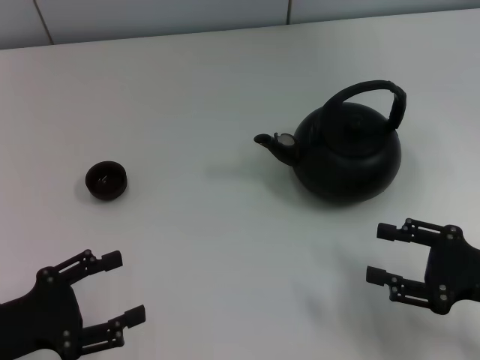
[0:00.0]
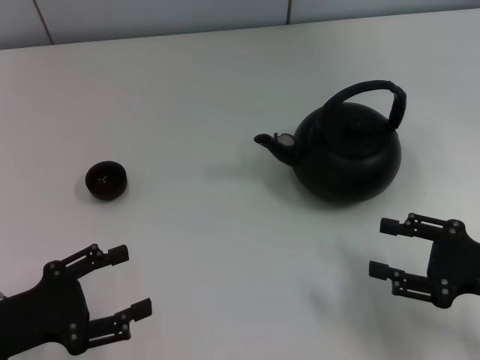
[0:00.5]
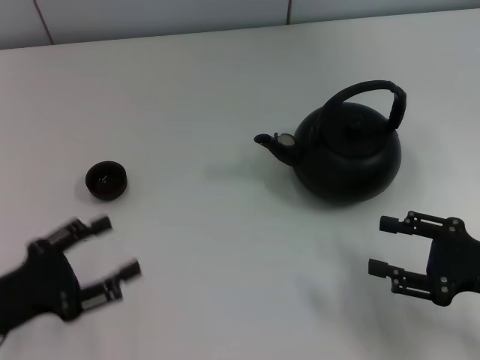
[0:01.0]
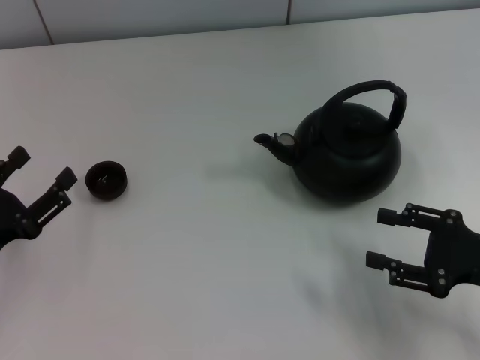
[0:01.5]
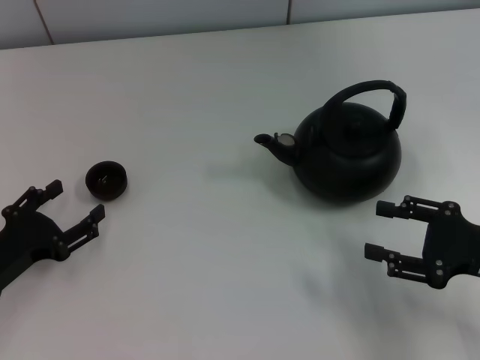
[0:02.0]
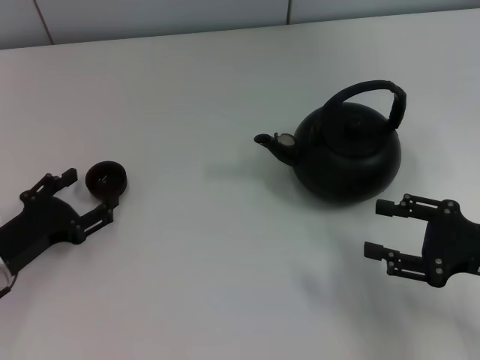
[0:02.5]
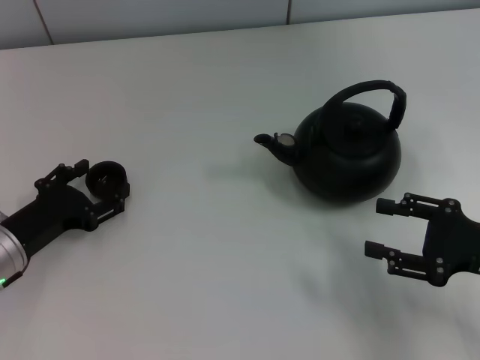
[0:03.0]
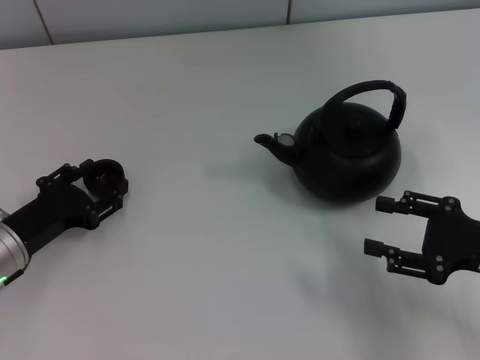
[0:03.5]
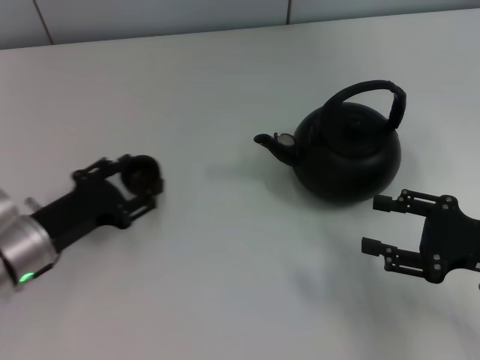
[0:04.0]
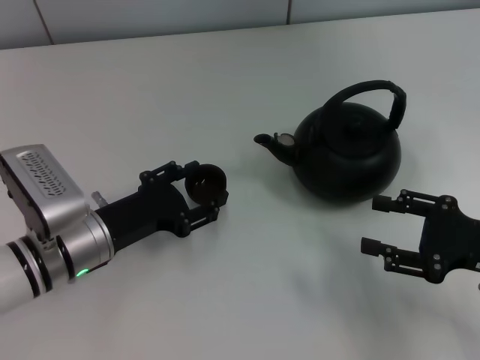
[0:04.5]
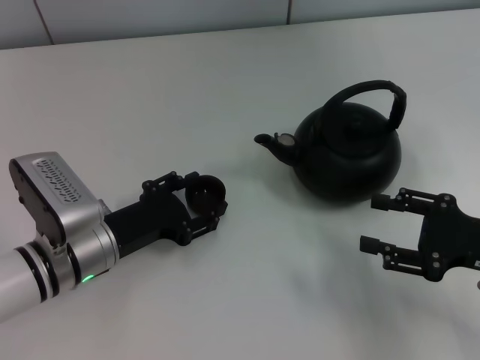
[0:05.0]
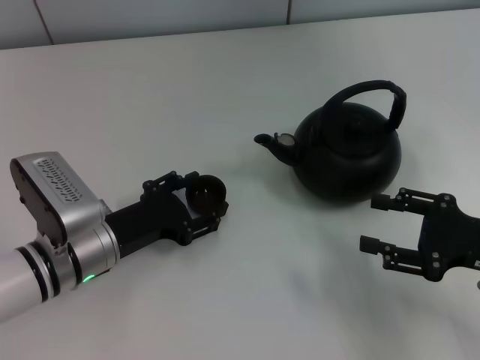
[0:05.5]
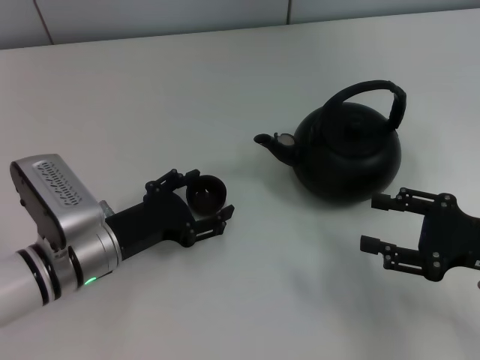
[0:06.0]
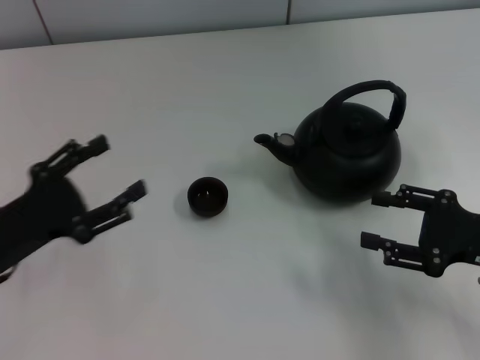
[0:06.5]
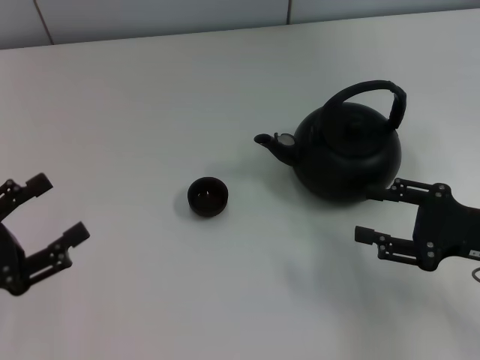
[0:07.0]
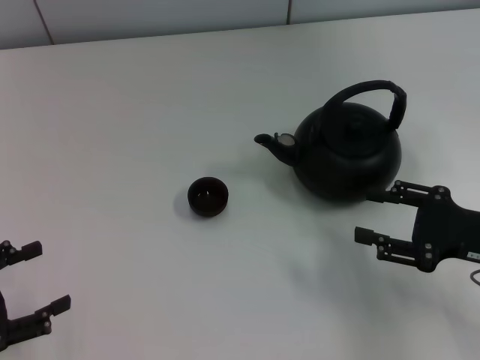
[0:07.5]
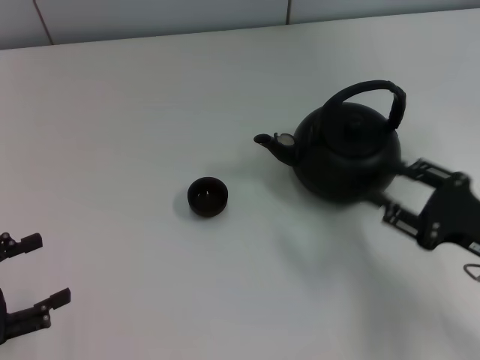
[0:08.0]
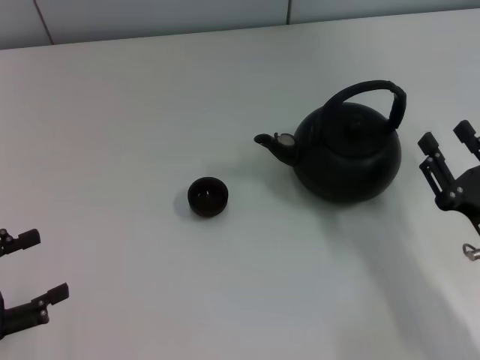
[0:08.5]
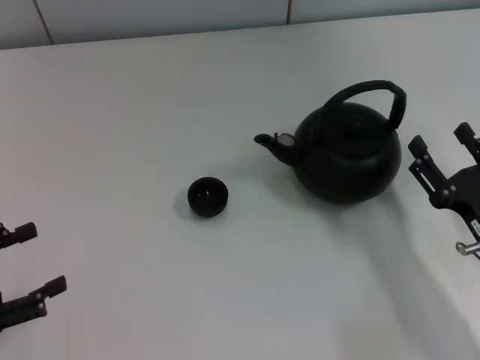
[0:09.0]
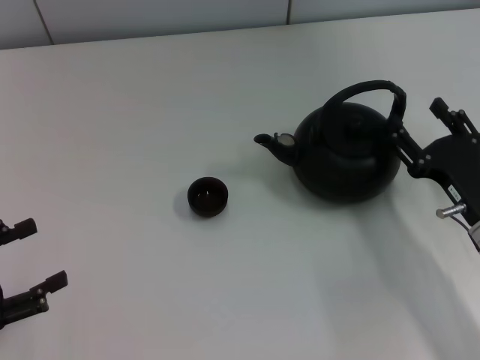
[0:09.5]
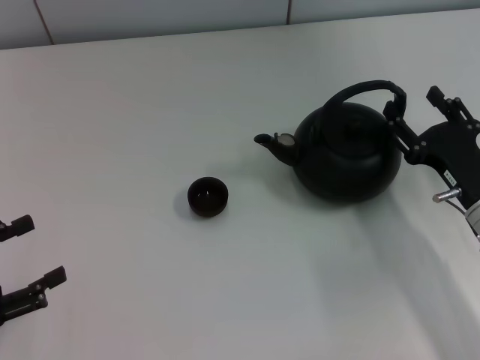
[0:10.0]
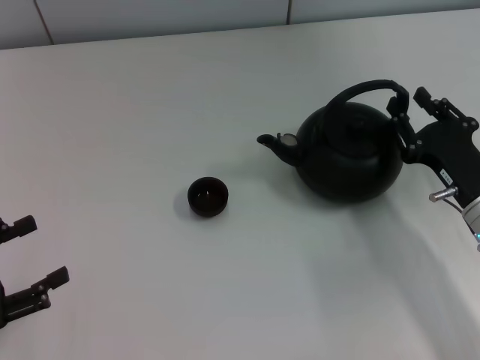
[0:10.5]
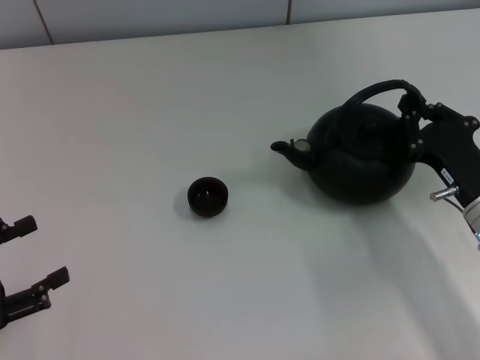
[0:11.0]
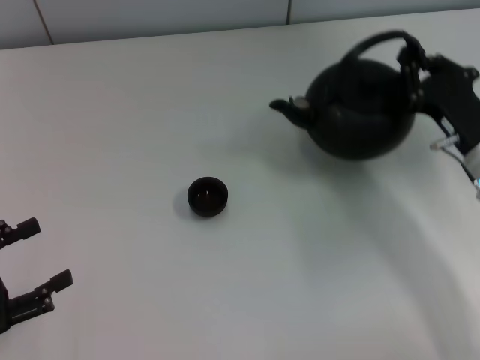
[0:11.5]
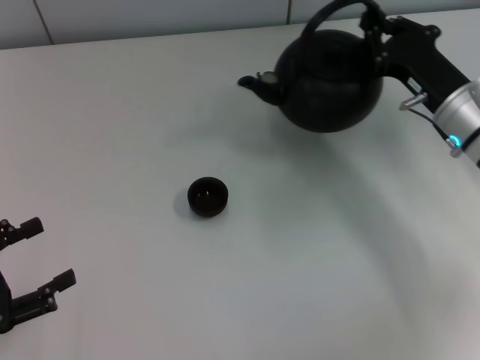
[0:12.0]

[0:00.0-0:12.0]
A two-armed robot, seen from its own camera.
Task of the whole recording: Grasp the handle of the teapot with one hand and pour tea into the teacup.
Step, 0:00.0 to 0:04.0: Pick up the teacup with the left gripper.
Step, 0:04.5 to 0:06.5: Place the teacup in the center of view with the left gripper.
Step, 0:07.0 to 0:11.5: Pick up the teapot with the right gripper.
0:00.0 to 0:02.0: The left gripper moves approximately 5 cm.
0:02.0 to 0:04.0: The left gripper moves about 5 cm, and closes up.
0:04.0 to 0:06.0: The left gripper heads to the right, covering approximately 5 cm, and opens.
0:06.0 to 0:08.0: The left gripper goes approximately 20 cm to the left and backward.
0:08.0 to 0:10.0: The right gripper travels forward by about 5 cm.
0:10.0 to 0:12.0: The right gripper goes approximately 10 cm forward and upward, and closes its fingers.

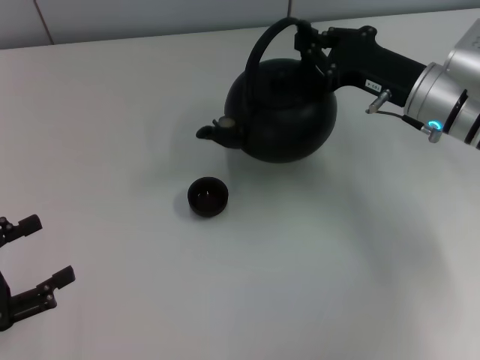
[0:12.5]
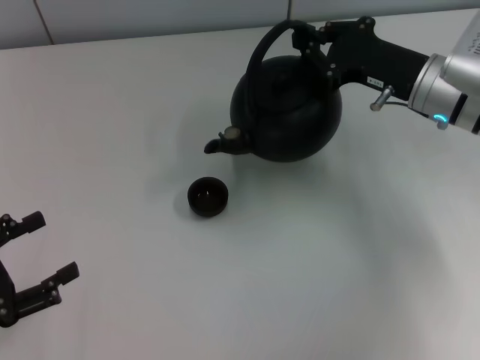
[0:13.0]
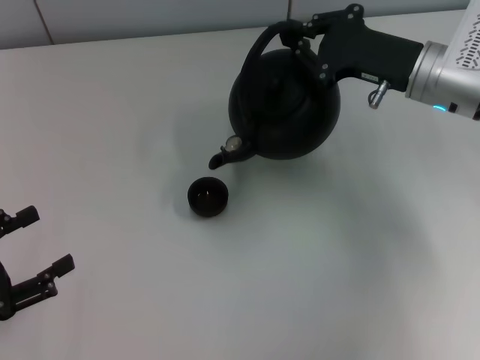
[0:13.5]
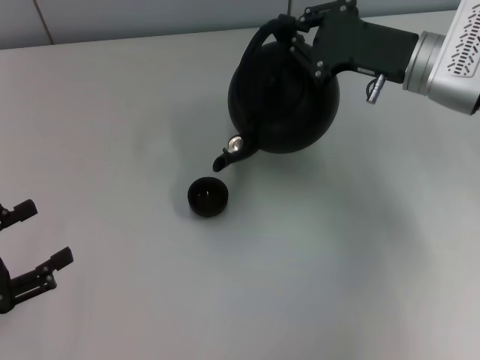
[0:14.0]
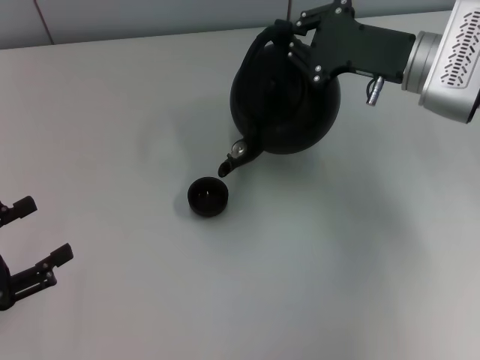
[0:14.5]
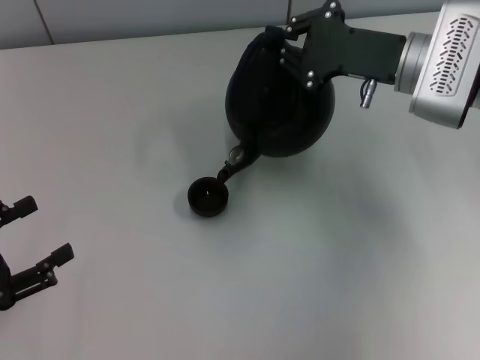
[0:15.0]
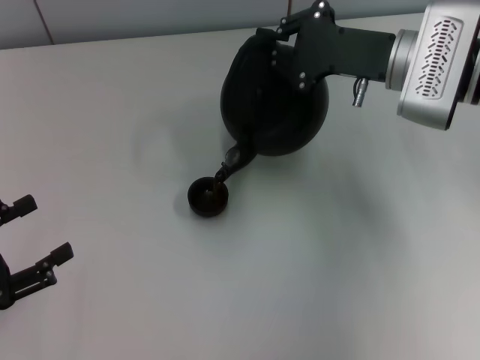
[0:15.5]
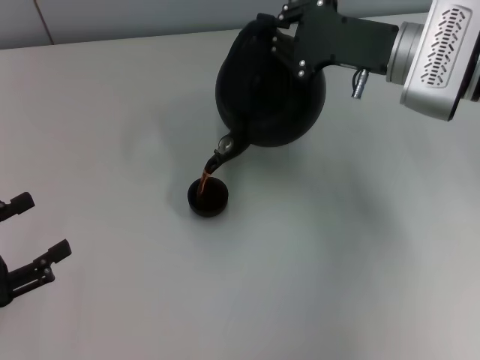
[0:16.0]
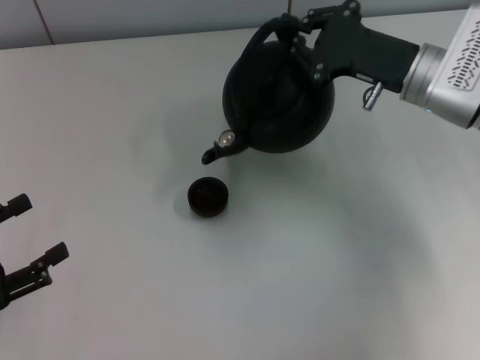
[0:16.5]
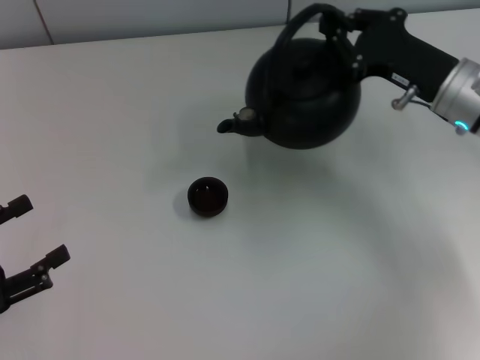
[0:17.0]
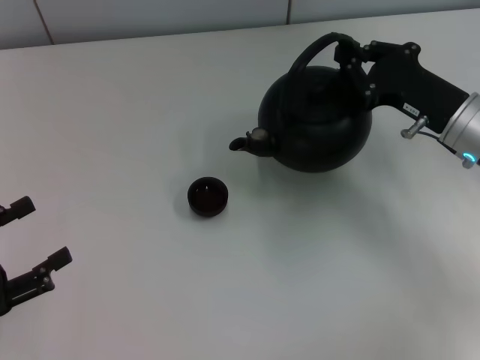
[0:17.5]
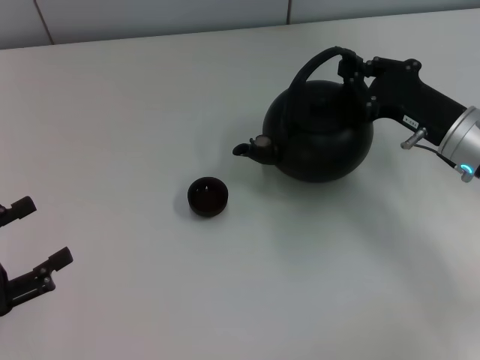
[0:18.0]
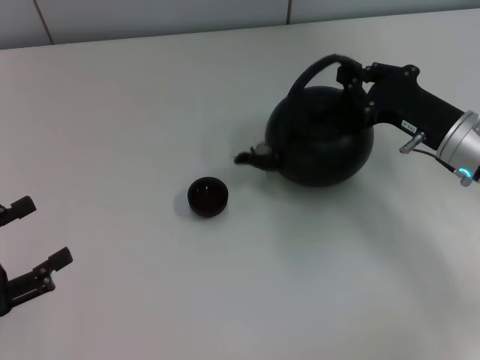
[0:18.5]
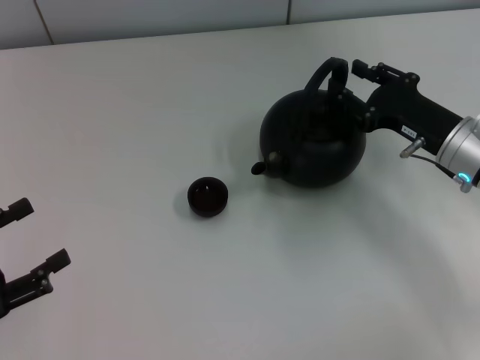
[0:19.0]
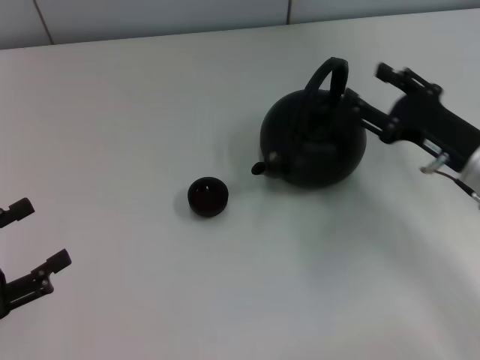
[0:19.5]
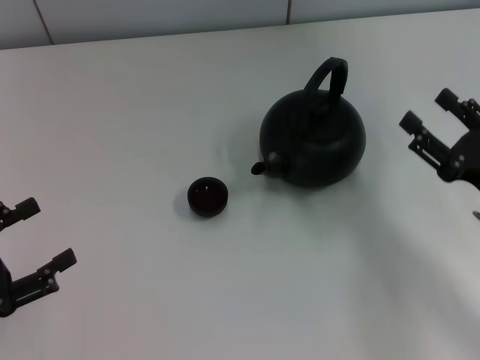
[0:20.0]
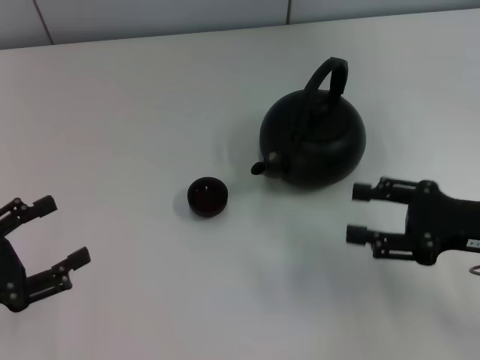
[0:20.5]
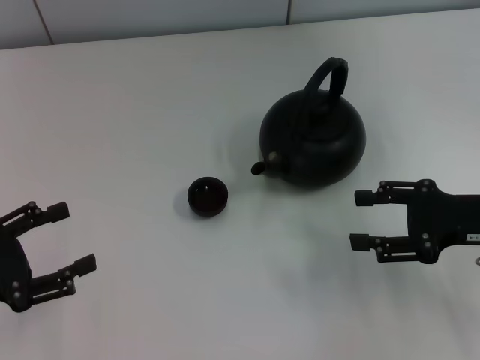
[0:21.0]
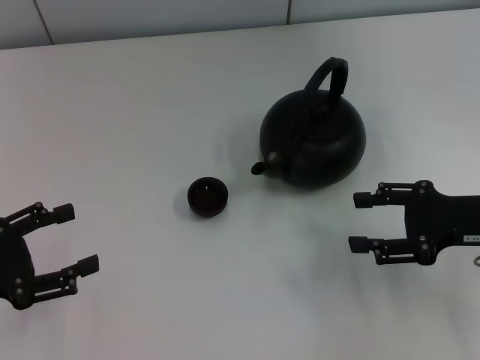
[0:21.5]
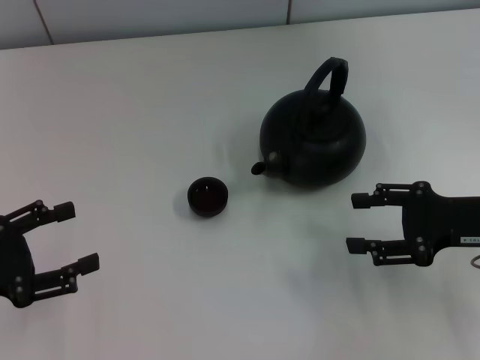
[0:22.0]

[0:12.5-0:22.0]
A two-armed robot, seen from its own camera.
Task of the whole recording: Grasp the handle of the teapot with one hand and pour tea into the teacup.
Step, 0:17.0 to 0:20.0: Put down the teapot with the right gripper.
0:14.5 to 0:16.5: There are only small adjustments of the grippers.
0:16.5 to 0:18.0: The right gripper is displaced downward by approximately 5 cm.
0:18.0 to 0:20.0: The right gripper heads backward, covering roughly 10 cm, and opens its fingers.

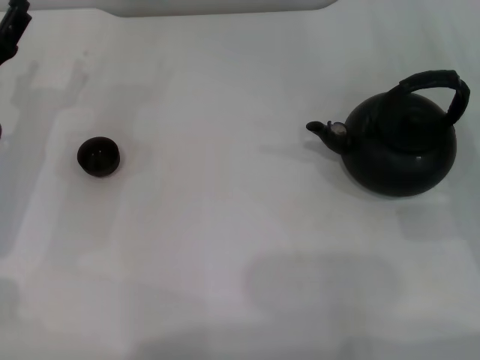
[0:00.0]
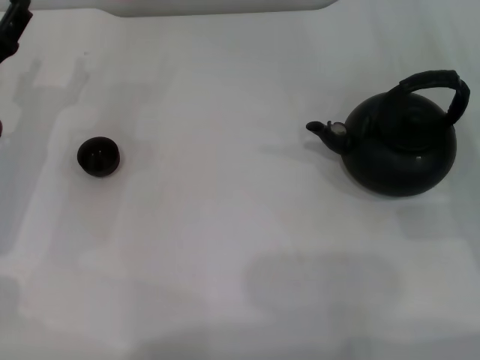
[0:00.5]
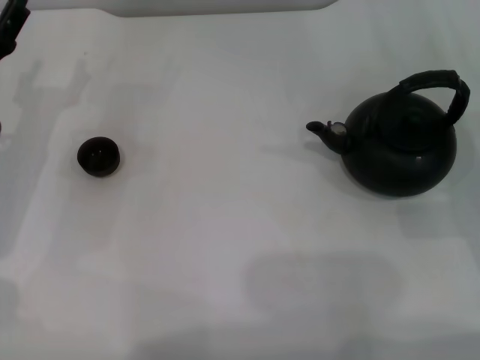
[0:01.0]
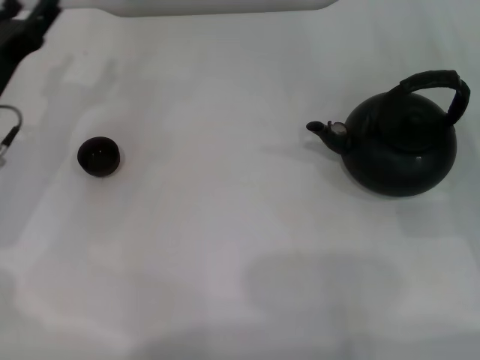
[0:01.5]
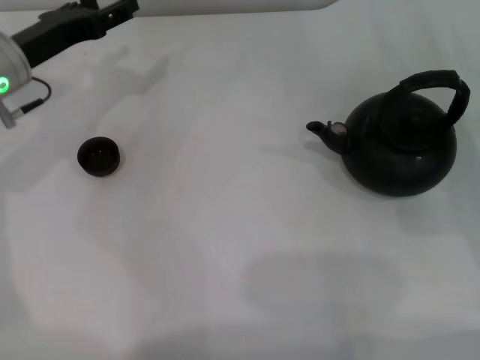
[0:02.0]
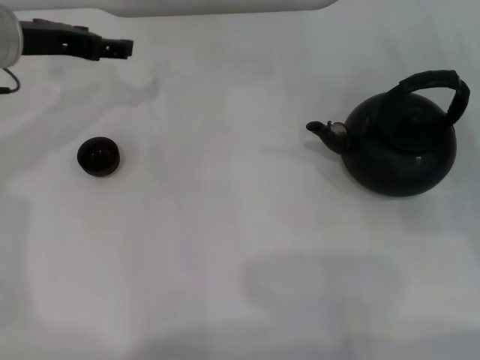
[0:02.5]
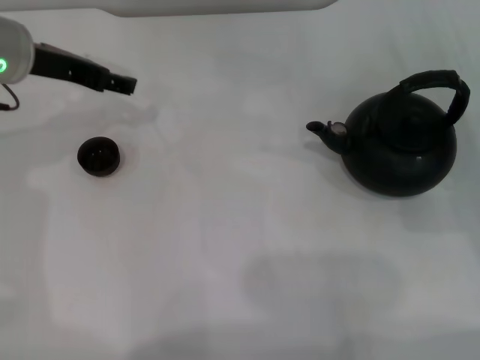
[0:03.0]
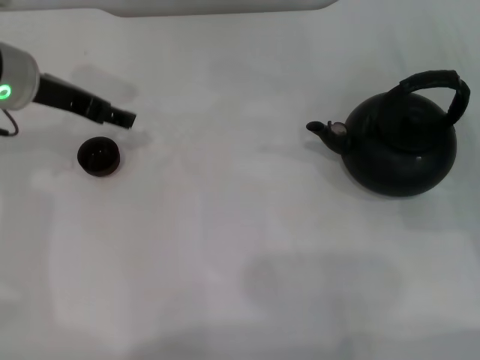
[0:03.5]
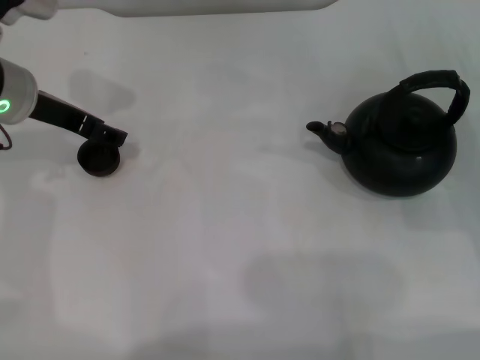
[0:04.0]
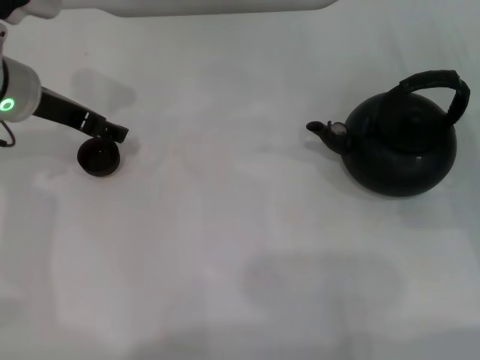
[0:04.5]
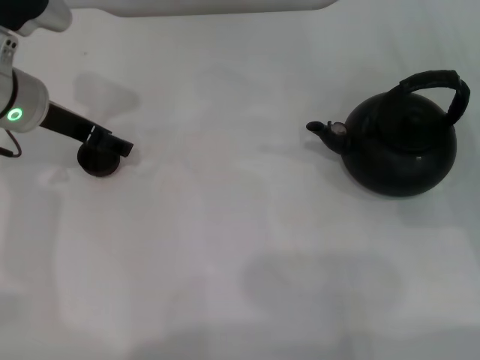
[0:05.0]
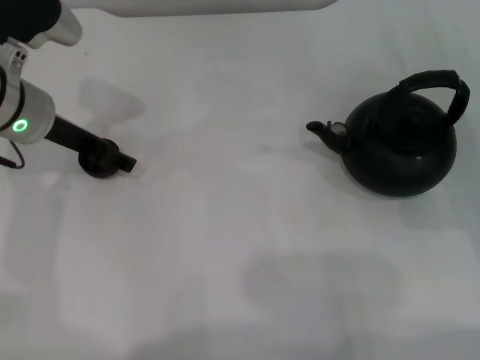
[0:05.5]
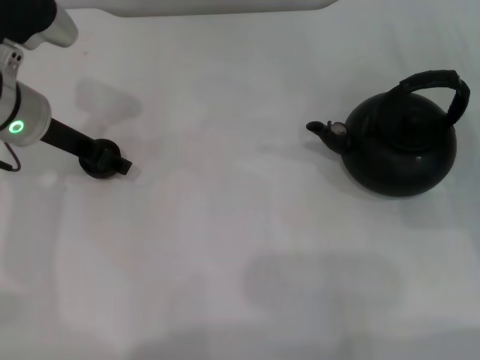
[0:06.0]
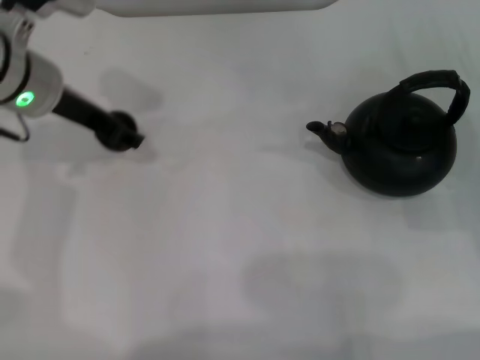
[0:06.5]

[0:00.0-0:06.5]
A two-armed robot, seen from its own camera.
Task of the whole recording: Grasp the handle of the teapot with one hand and pour tea into the teacup.
Step, 0:00.0 to 0:06.0: Pick up the teacup with the left gripper.
0:00.0 to 0:02.0: The left gripper shifts some 10 cm forward and upward.
0:04.5 to 0:06.5: The left gripper closes its fingers.
